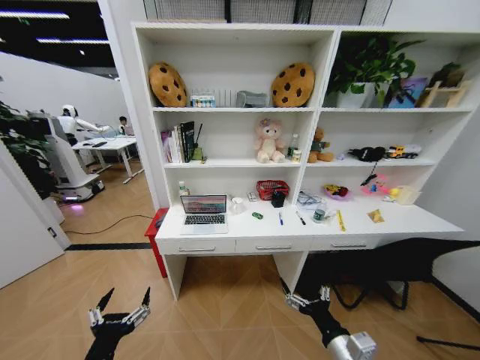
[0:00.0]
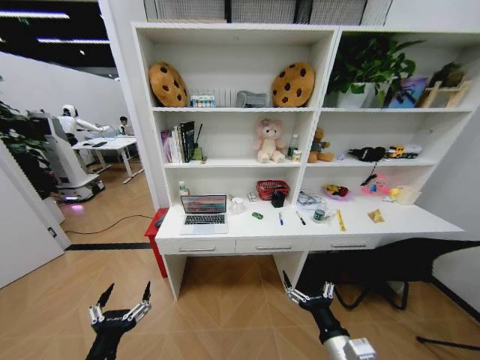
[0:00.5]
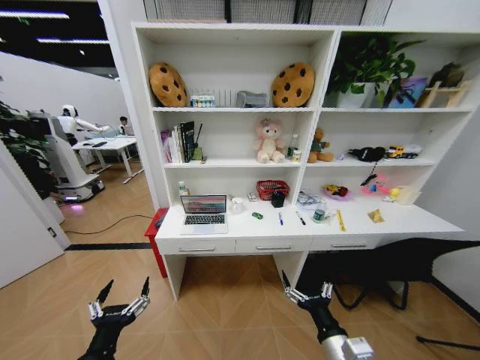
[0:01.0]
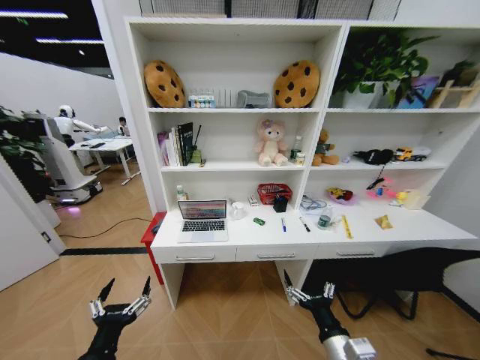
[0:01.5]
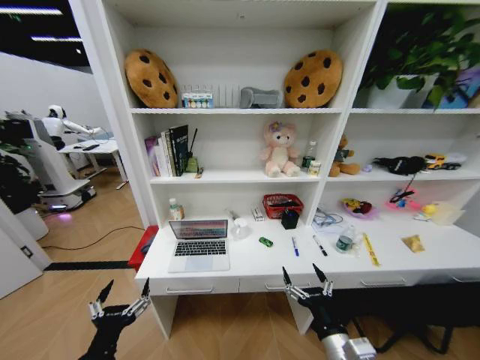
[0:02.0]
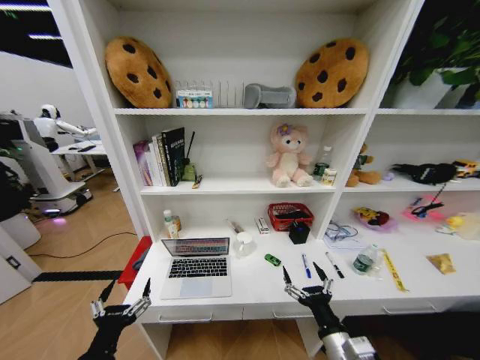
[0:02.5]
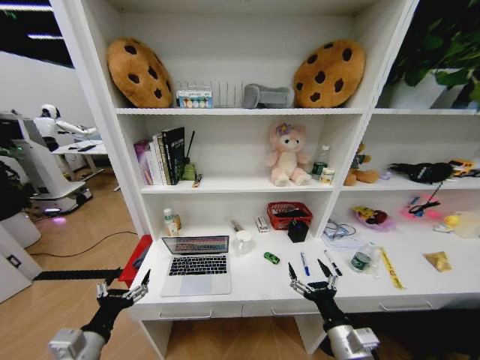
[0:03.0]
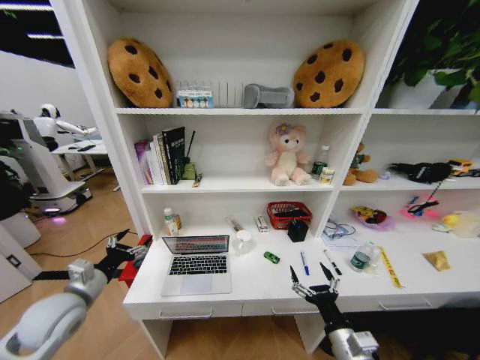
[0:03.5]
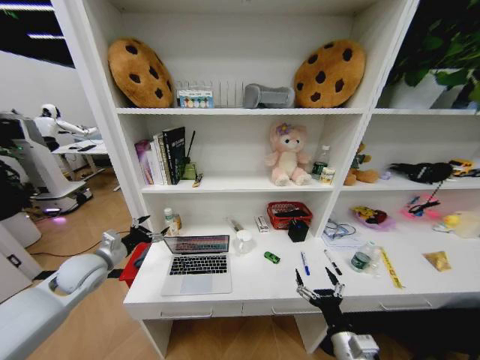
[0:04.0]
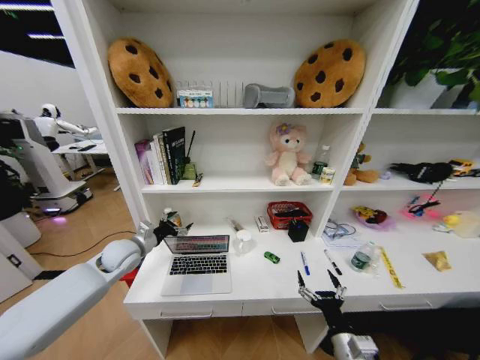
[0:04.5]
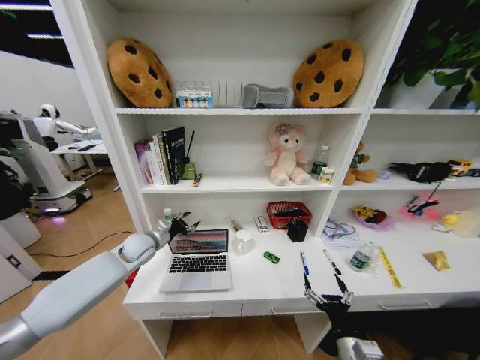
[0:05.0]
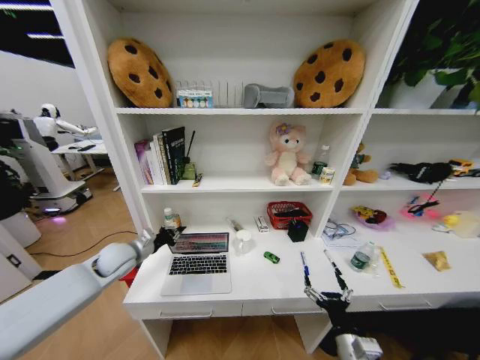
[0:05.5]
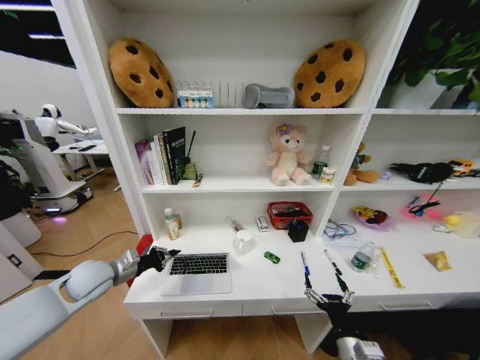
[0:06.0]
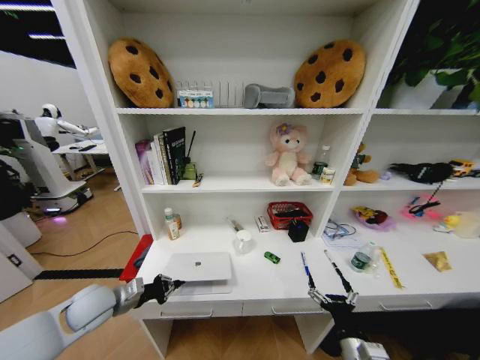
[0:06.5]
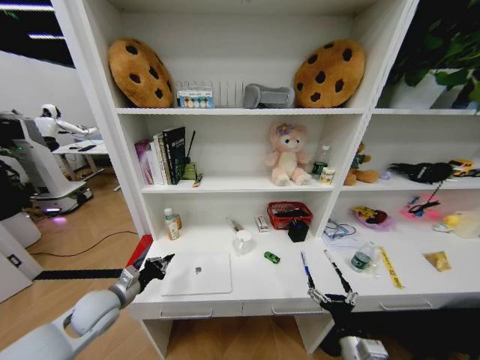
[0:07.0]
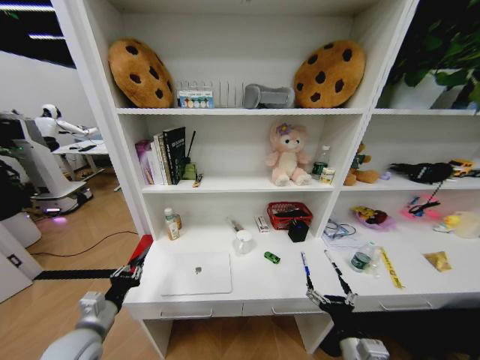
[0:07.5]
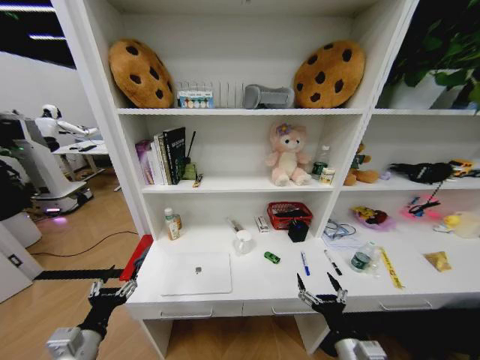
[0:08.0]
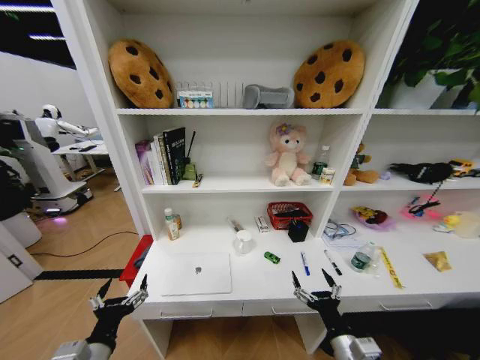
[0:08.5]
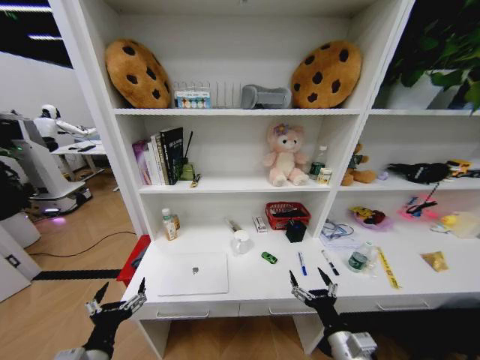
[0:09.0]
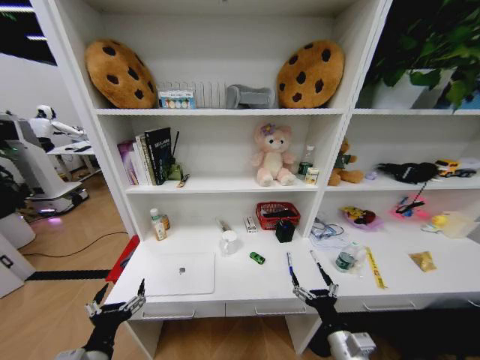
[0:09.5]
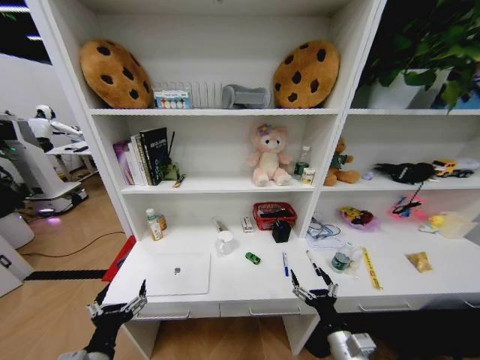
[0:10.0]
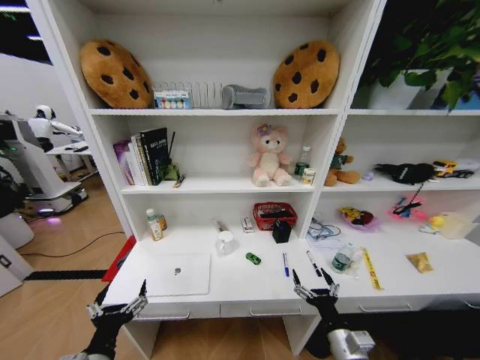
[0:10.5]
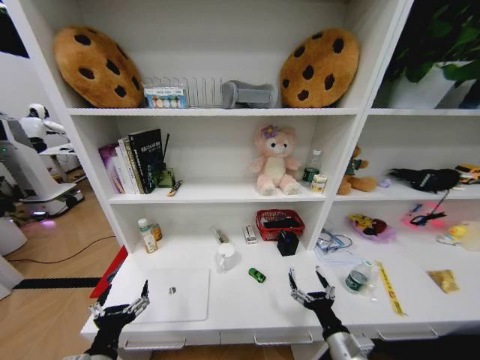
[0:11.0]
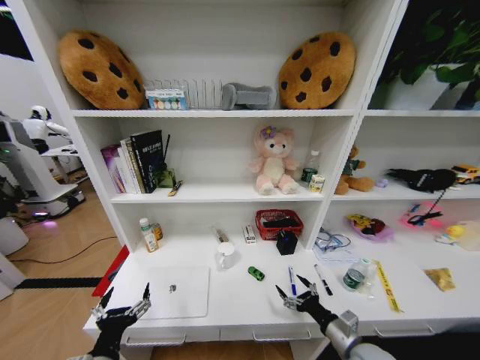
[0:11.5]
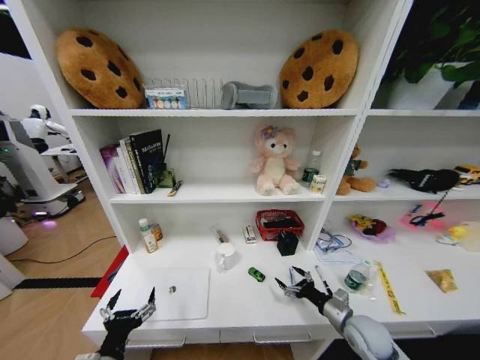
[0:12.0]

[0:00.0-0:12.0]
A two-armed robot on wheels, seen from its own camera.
Task of the whole recording: Organize the objects on the table.
0:02.0 to 0:04.0: The left gripper goes roughly 30 cm forward and to the left.
0:04.0 to 0:06.0: The left gripper reaches approximately 10 cm forward, then returns, and closes its fingers.
0:06.0 to 0:08.0: The left gripper heads backward, covering roughly 20 cm, and opens up.
0:08.0 to 0:10.0: The left gripper moves approximately 5 cm.
0:10.0 to 0:12.0: The right gripper shifts about 15 cm forward and to the right.

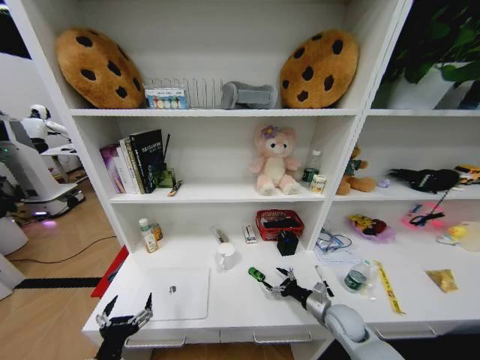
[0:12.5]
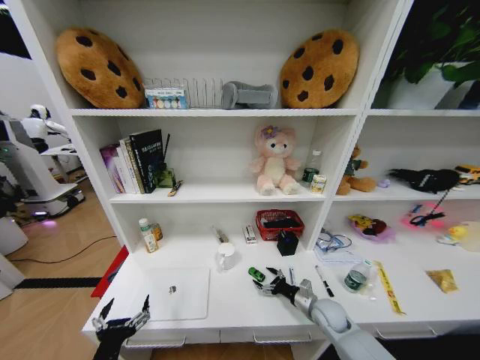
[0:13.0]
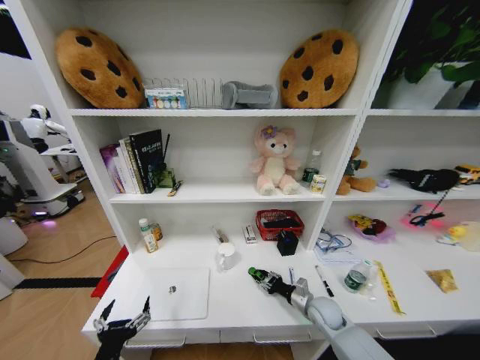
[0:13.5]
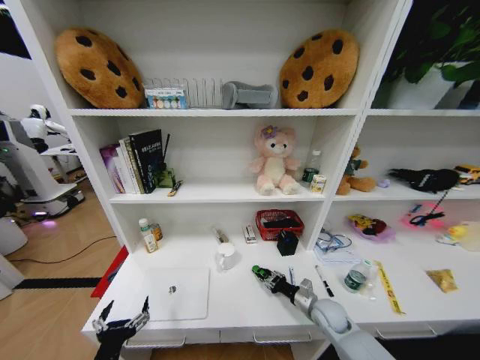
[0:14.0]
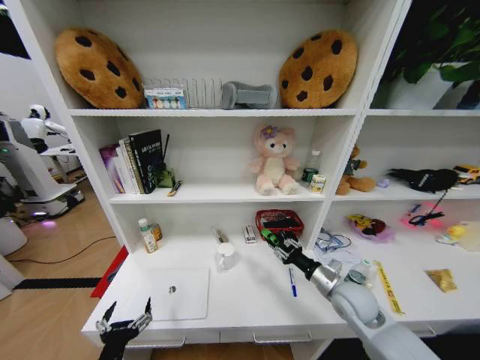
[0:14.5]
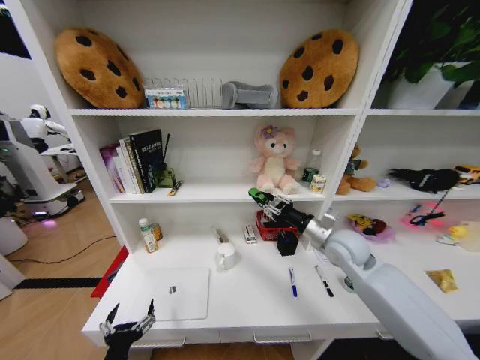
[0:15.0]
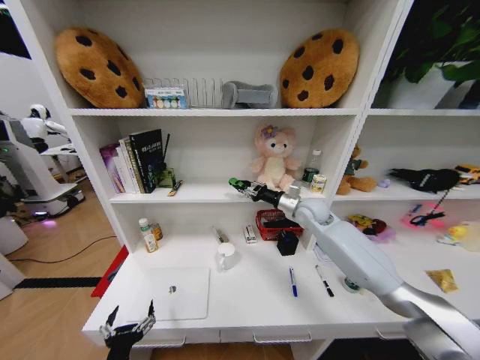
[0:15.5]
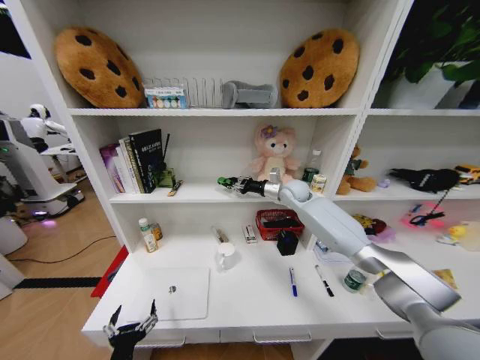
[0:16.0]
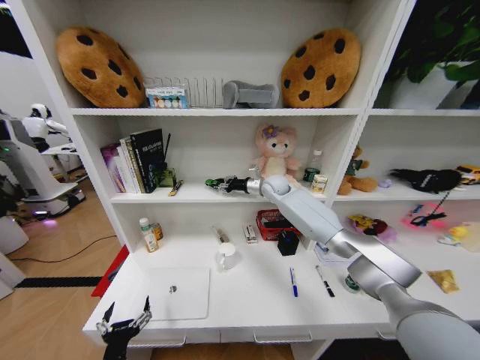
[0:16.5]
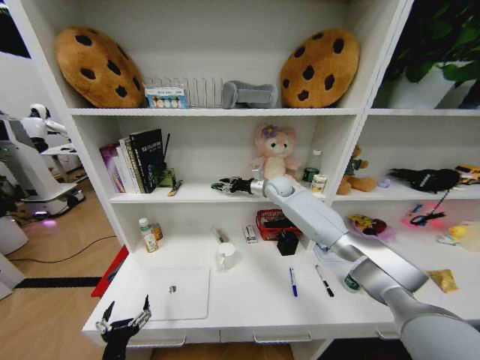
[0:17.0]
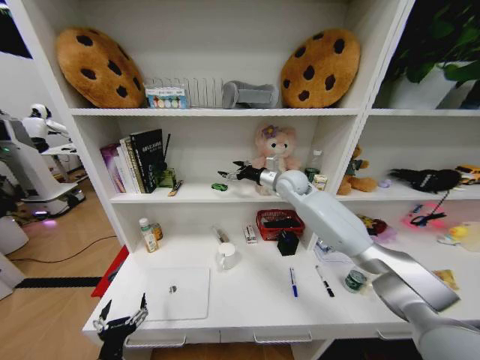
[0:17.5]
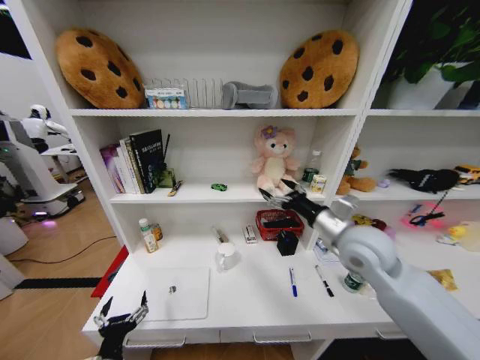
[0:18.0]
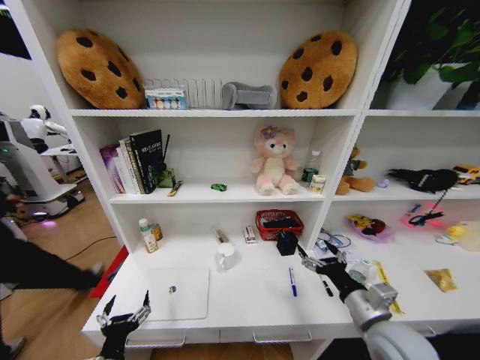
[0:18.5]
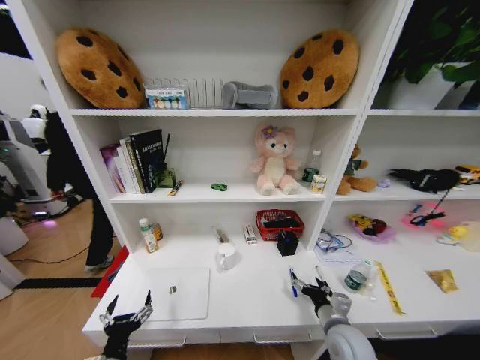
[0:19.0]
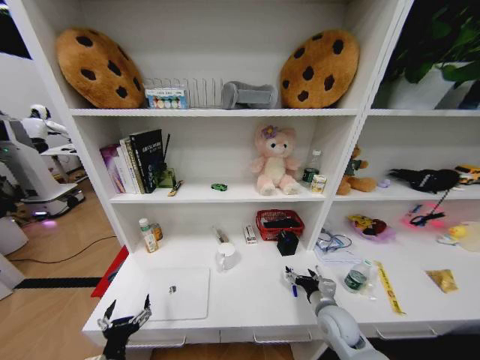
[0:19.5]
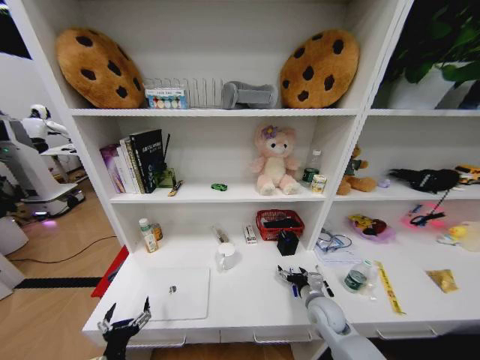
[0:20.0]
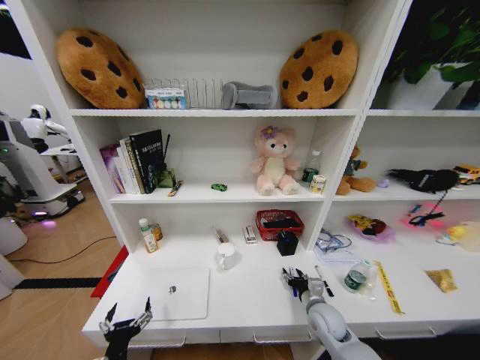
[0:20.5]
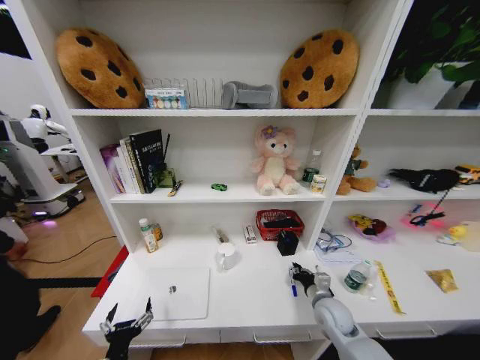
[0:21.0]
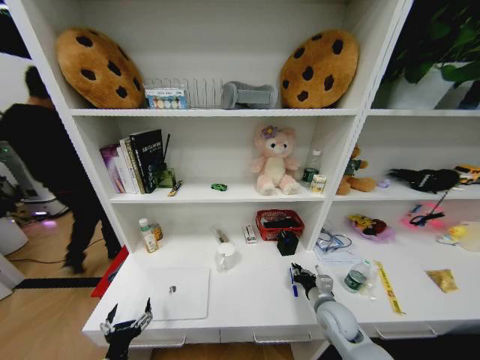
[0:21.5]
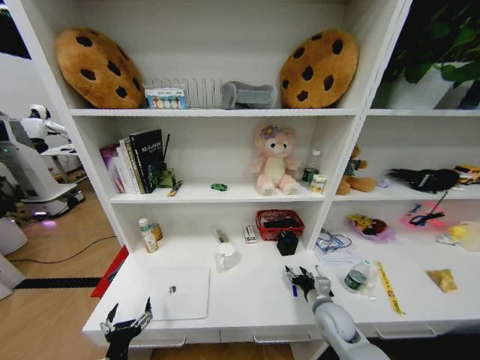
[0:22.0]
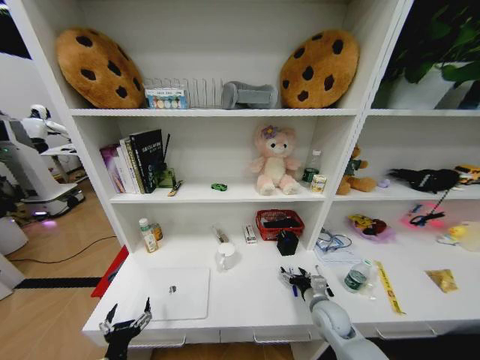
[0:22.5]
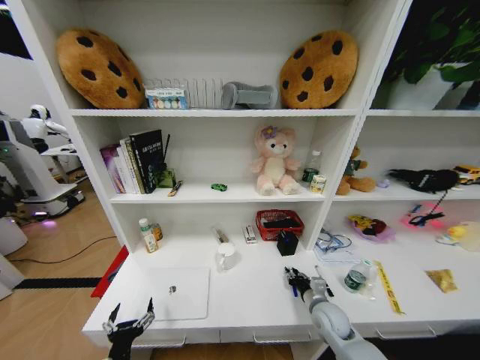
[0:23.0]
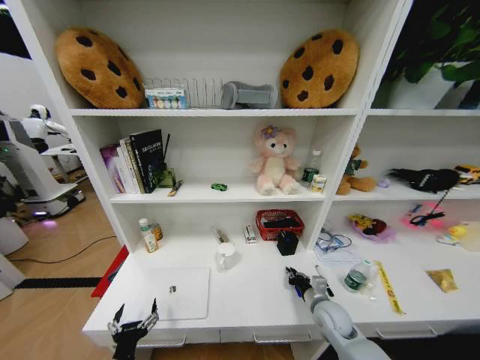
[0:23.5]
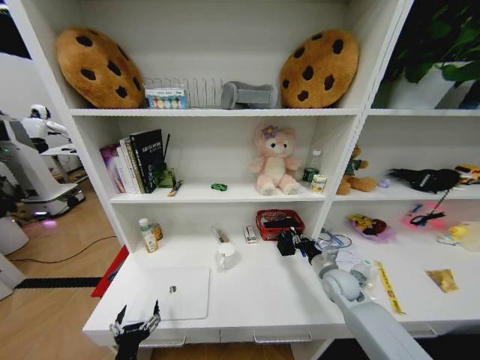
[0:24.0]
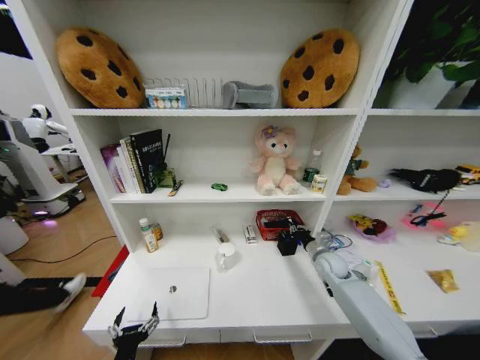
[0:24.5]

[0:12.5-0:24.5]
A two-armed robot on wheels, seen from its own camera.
Task of the whole recording: Organize the objects on the table.
0:12.5 to 0:14.5: The right gripper moves upward, some 10 cm, and closes up.
0:14.5 to 0:16.5: The right gripper shifts about 40 cm forward, upward and to the left.
0:16.5 to 0:18.5: The right gripper shifts some 40 cm backward, and opens its fingers.
0:18.5 to 0:20.5: The right gripper moves downward and forward, approximately 20 cm.
0:20.5 to 0:22.5: The right gripper closes, then opens again.
0:22.5 to 0:24.5: The right gripper goes some 15 cm forward, and closes.

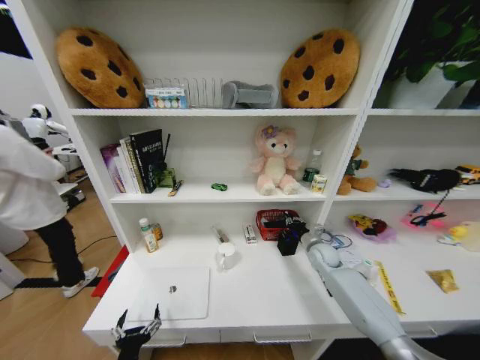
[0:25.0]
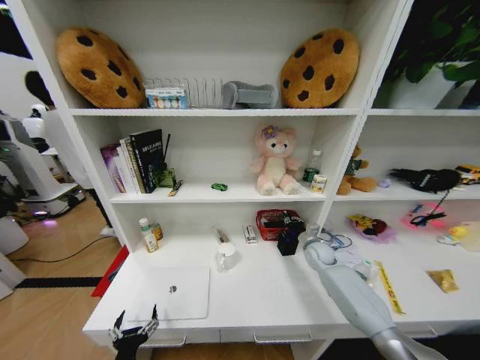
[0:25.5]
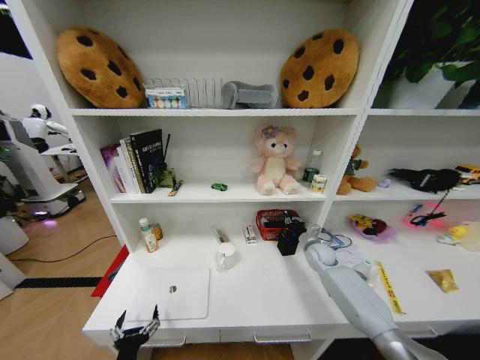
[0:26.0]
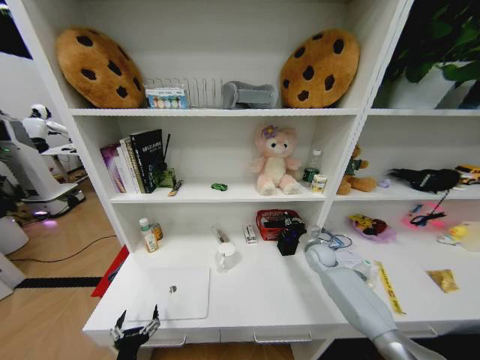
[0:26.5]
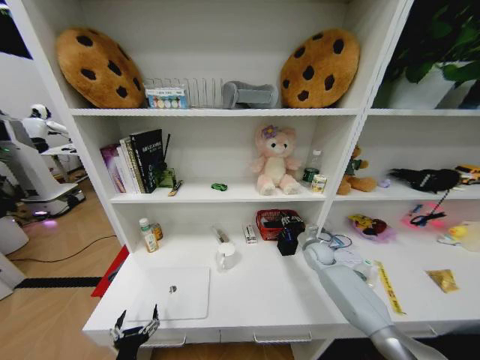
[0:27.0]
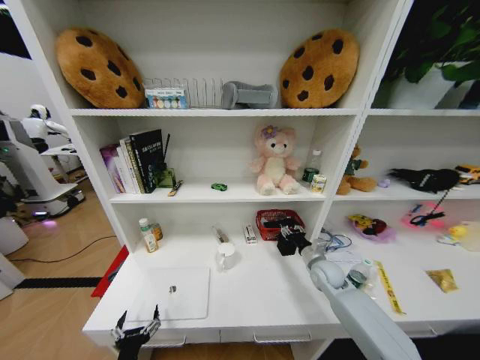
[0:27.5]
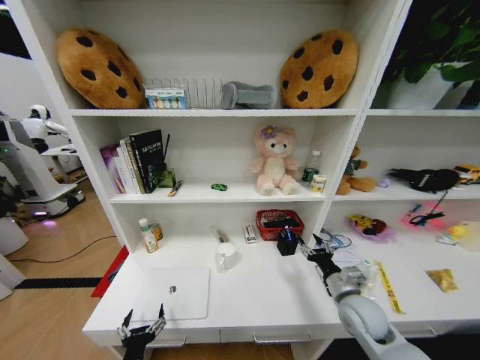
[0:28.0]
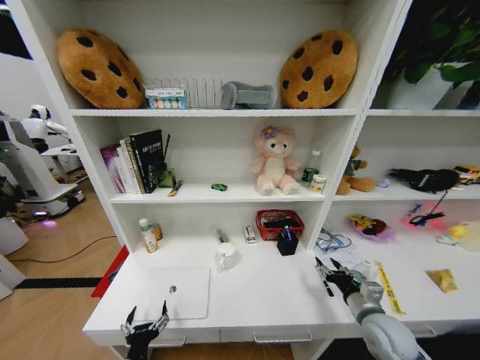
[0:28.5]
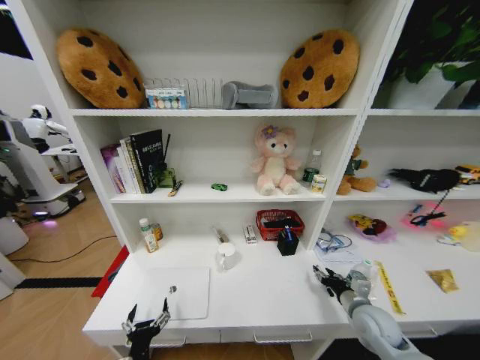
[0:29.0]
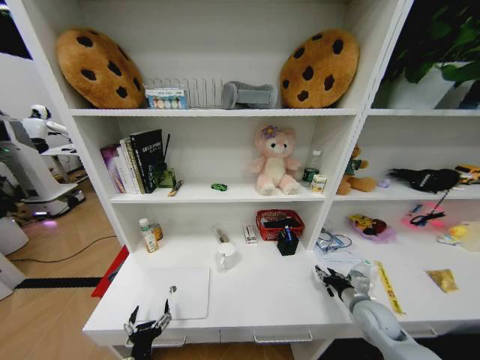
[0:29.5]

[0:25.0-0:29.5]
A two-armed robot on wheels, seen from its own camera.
Task of the whole recording: Organize the objects on the table.
0:25.0 to 0:27.0: The grippers make only small movements.
0:27.0 to 0:29.5: The right gripper is displaced backward by approximately 20 cm.
